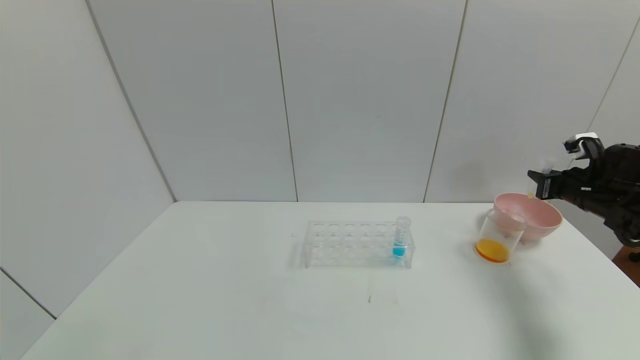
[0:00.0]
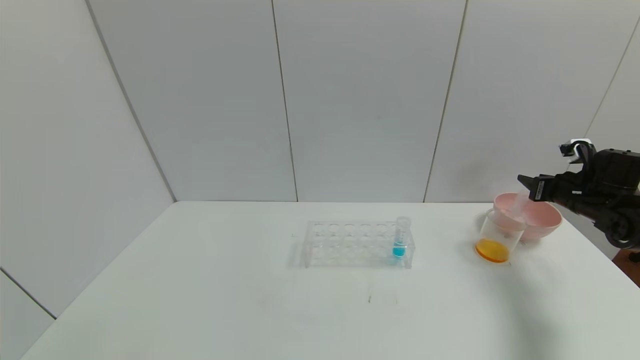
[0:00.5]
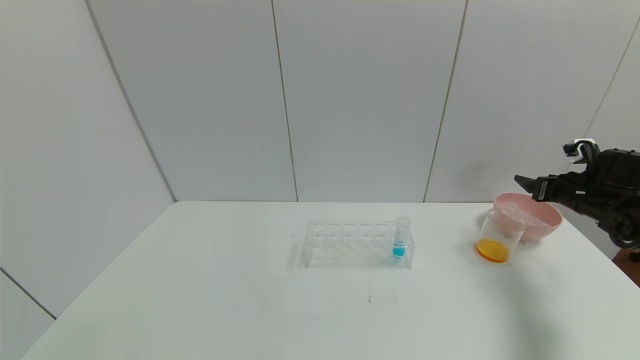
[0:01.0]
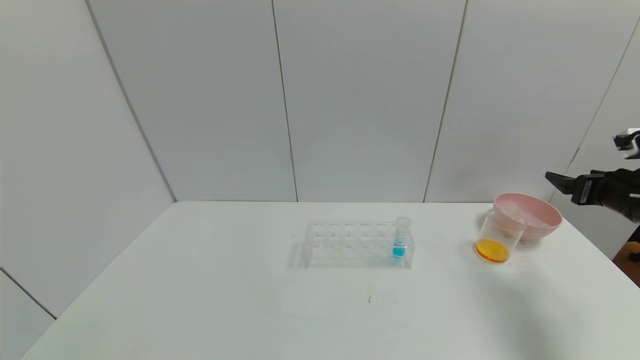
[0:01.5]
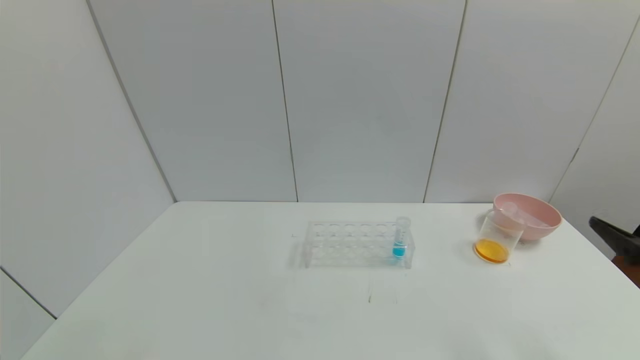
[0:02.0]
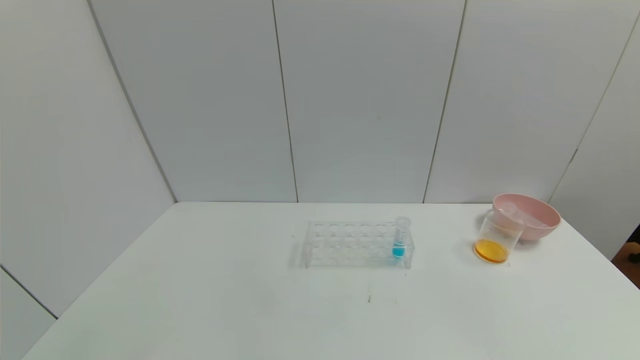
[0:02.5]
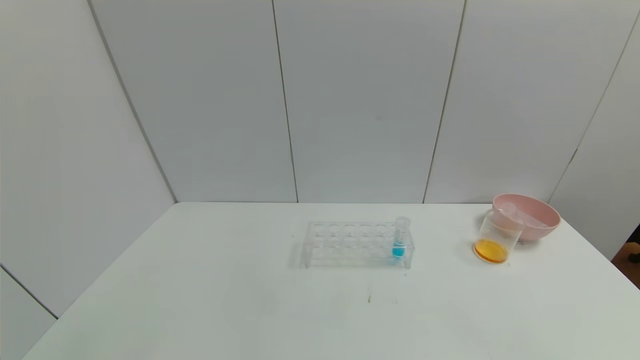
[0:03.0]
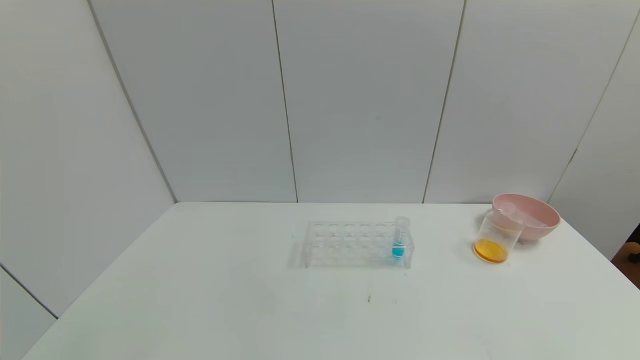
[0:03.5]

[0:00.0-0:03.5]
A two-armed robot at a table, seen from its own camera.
Task of the whole recording: pick up the test tube with yellow pigment and the test tube with red pigment by grippers and pour them into the beaker.
Step, 0:00.5 to 0:02.0: Place the test tube into the bowl with right gripper.
0:00.0 to 0:02.0: The right gripper goes about 25 cm backward, and opens.
